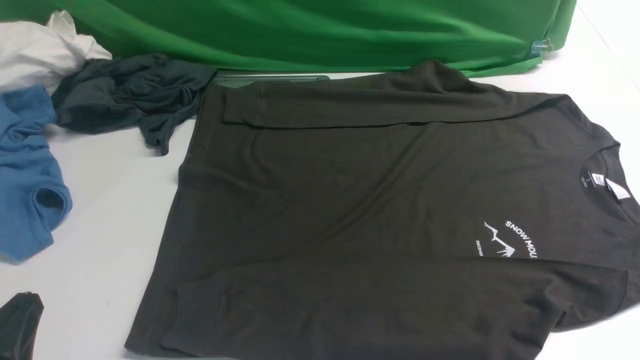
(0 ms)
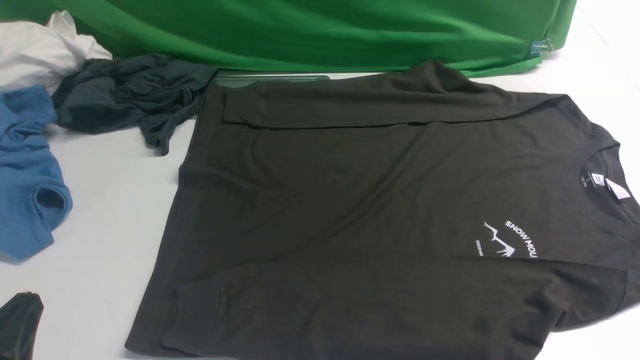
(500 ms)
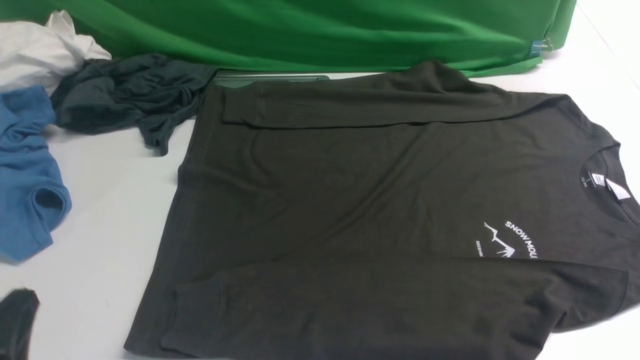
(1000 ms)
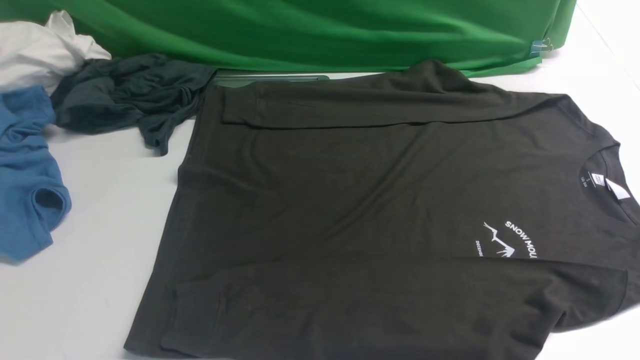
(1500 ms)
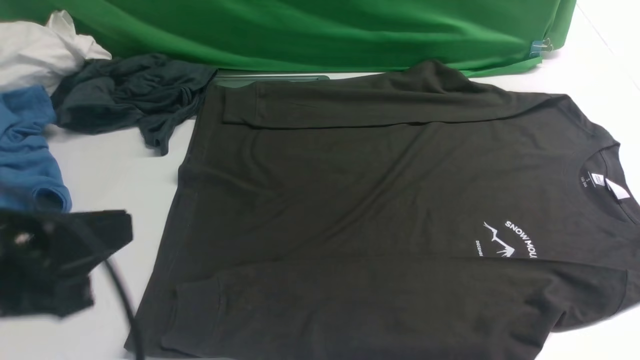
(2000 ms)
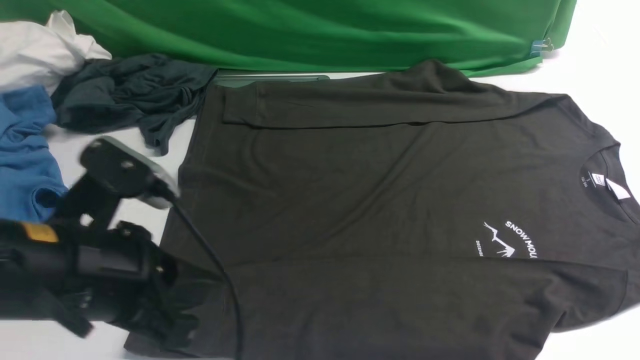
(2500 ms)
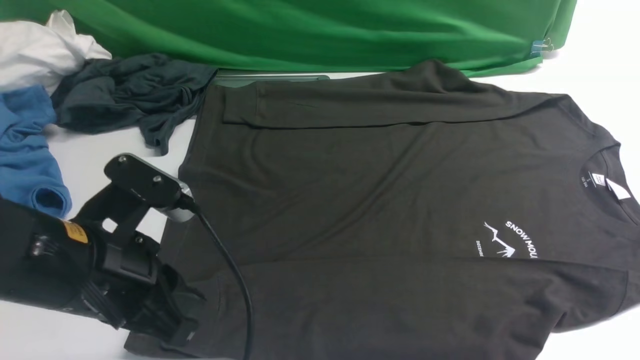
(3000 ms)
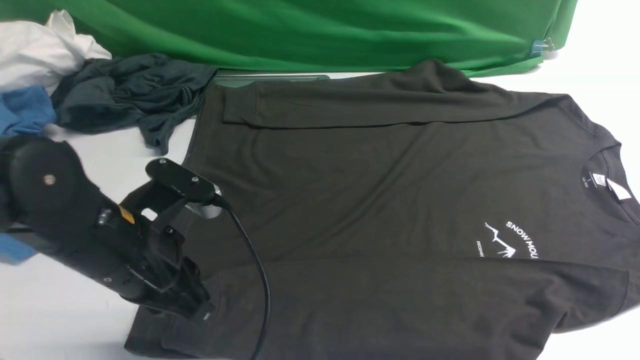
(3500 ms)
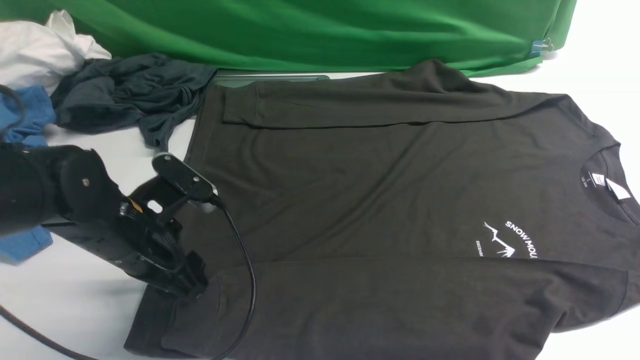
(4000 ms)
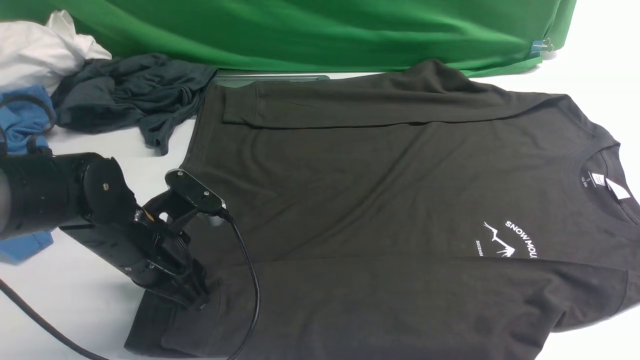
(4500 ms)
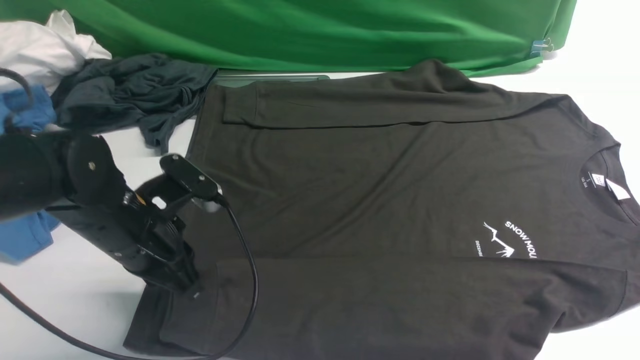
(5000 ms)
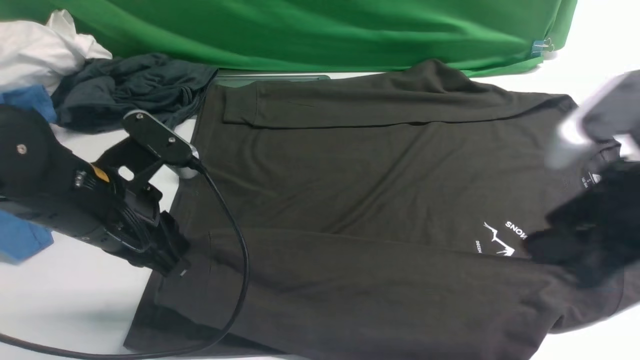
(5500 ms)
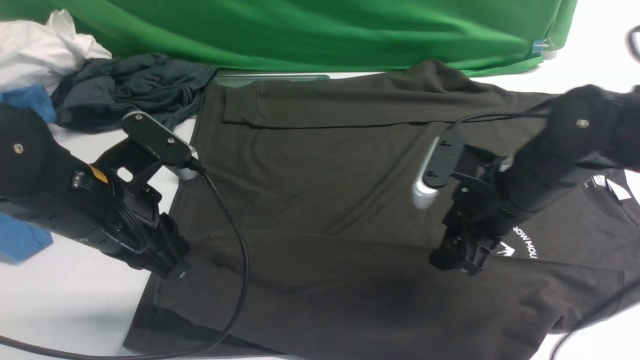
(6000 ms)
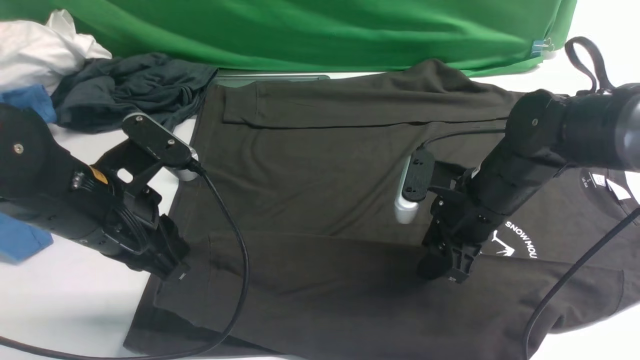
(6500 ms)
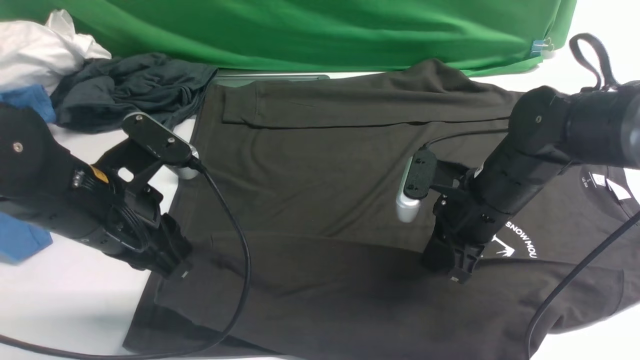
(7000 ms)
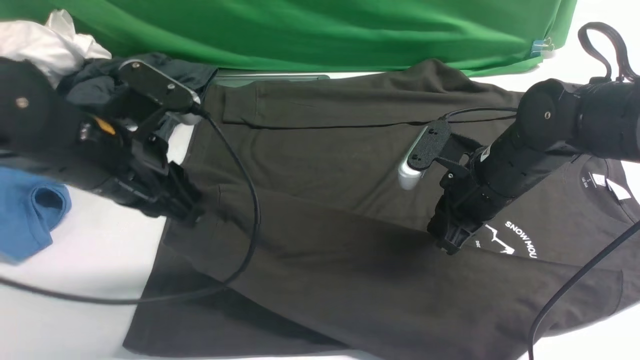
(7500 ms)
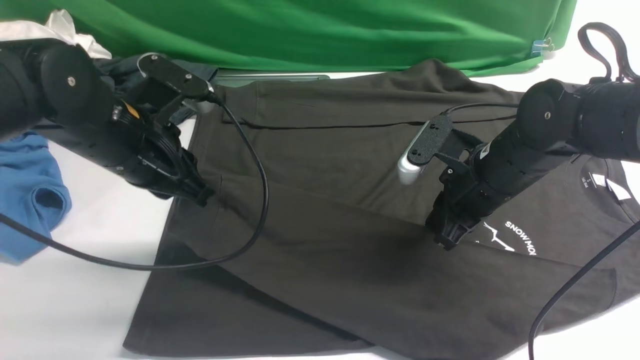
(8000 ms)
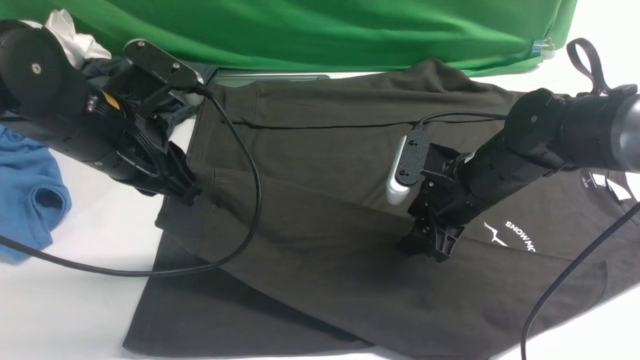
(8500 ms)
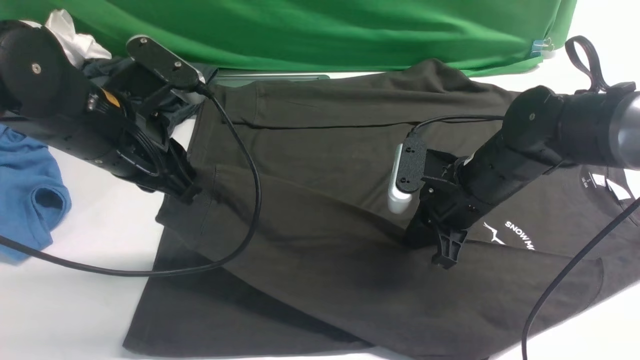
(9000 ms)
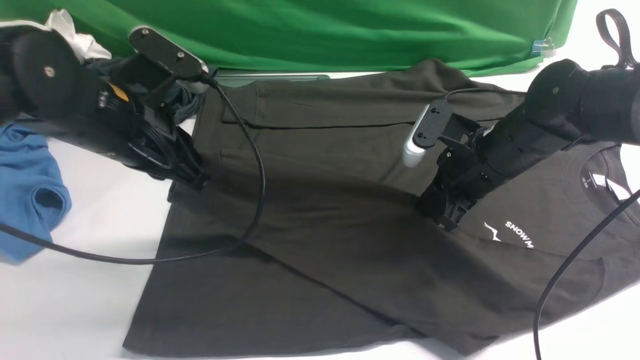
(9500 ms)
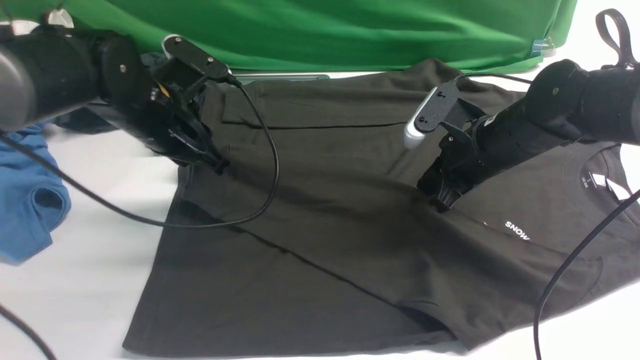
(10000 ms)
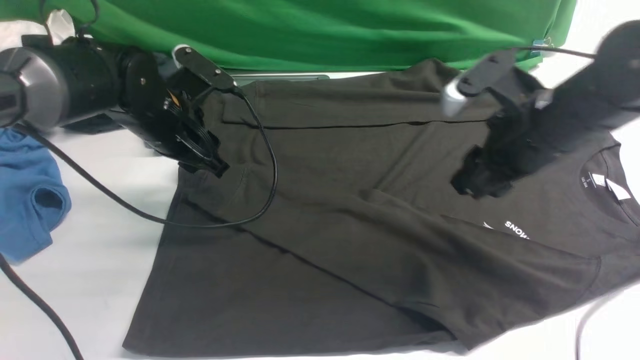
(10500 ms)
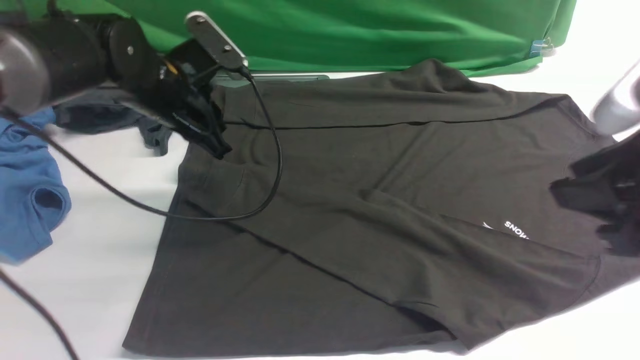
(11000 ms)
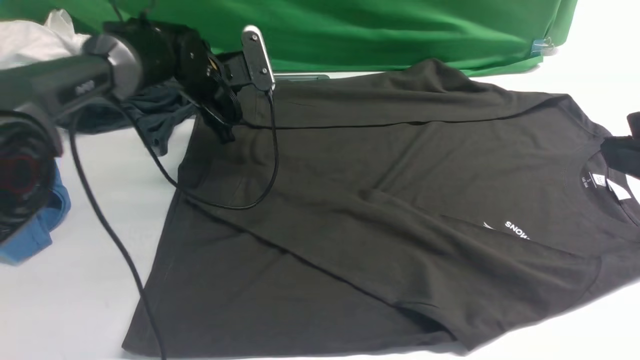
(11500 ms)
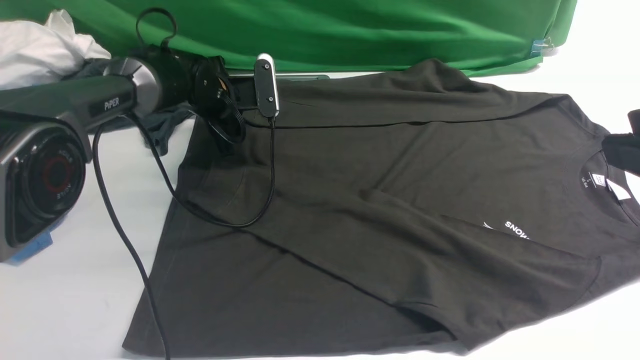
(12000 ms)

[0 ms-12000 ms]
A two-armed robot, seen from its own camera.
Step, 0 ms to 5000 ms: use the left arm to clamp the cuff closest to it.
Step, 5500 ms to 10500 ms: use the left arm to drag and place the cuff at the centered position on the left edge of the fabric.
0 ms to 2000 ms: The left gripper goes roughly 15 cm upward and forward.
2000 ms to 4000 ms: The left gripper heads forward and downward, covering about 20 cm, and opens its fingers.
4000 ms to 6000 ms: The left gripper travels upward by about 5 cm, and closes its fingers. Meanwhile the right gripper shifts about 30 cm forward, downward and to the left, and opens up.
6000 ms to 8000 ms: The right gripper closes; the left gripper heads forward, covering approximately 5 cm.
8000 ms to 10000 ms: The right gripper closes and opens again. Meanwhile the left gripper travels forward by roughly 5 cm.
10000 ms to 12000 ms: The right gripper moves backward and upward, roughly 30 cm. Meanwhile the left gripper moves forward and downward, about 15 cm, and opens up.

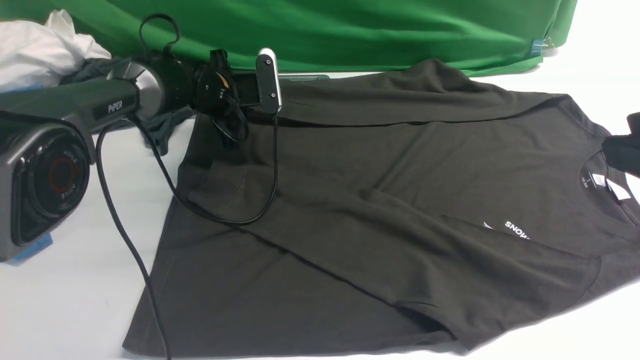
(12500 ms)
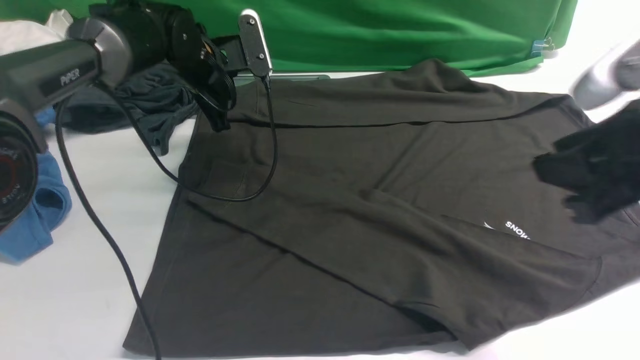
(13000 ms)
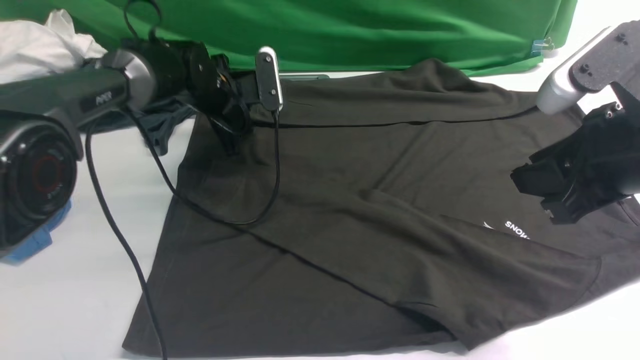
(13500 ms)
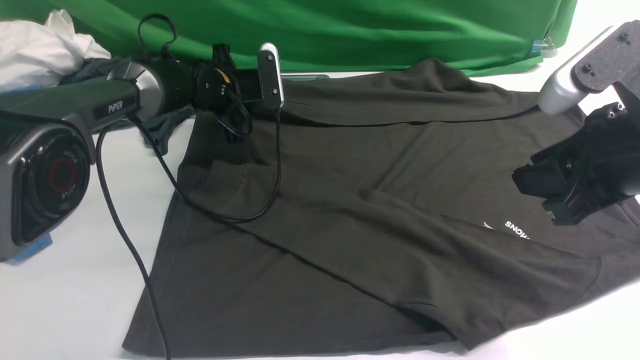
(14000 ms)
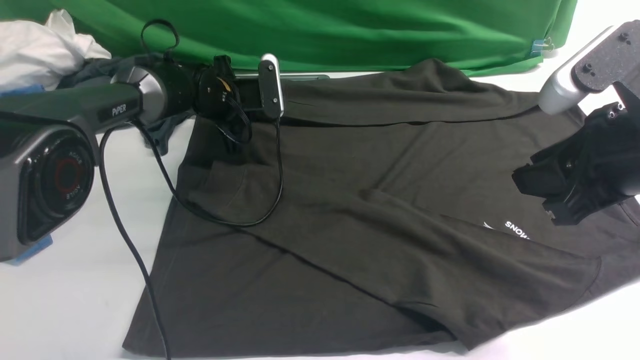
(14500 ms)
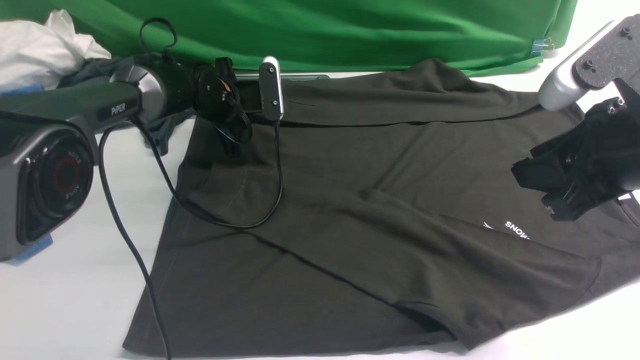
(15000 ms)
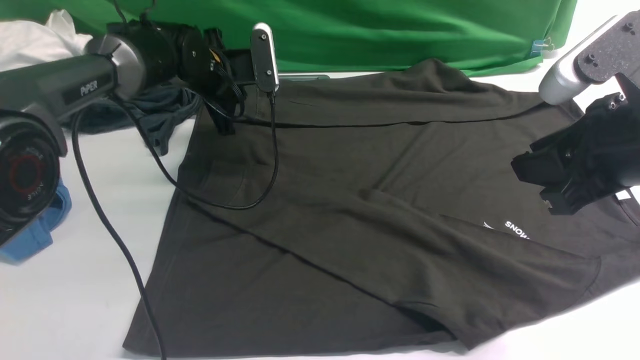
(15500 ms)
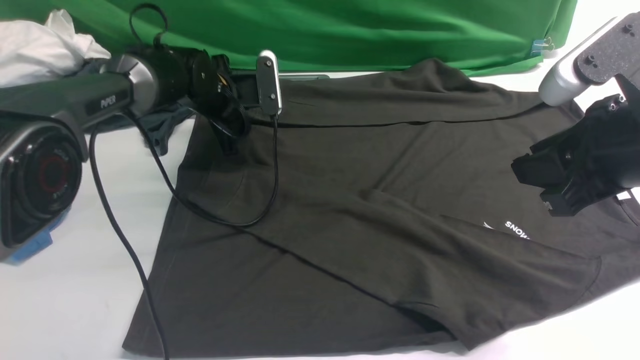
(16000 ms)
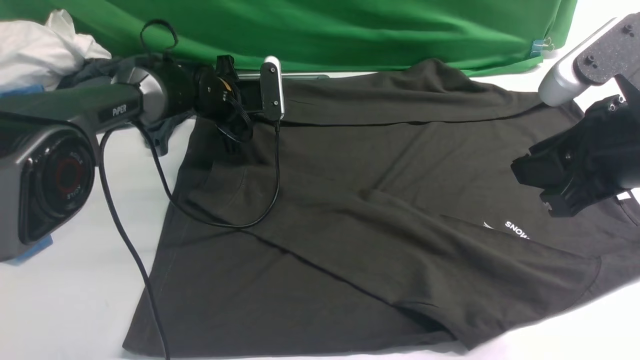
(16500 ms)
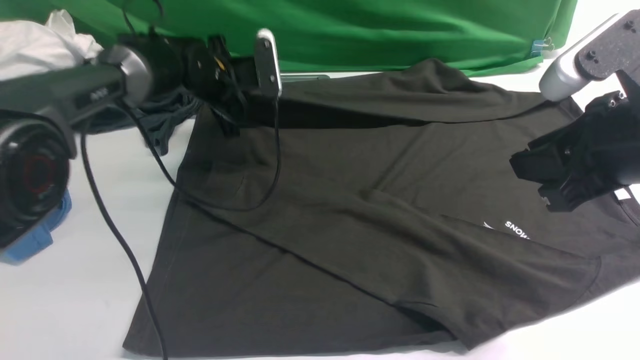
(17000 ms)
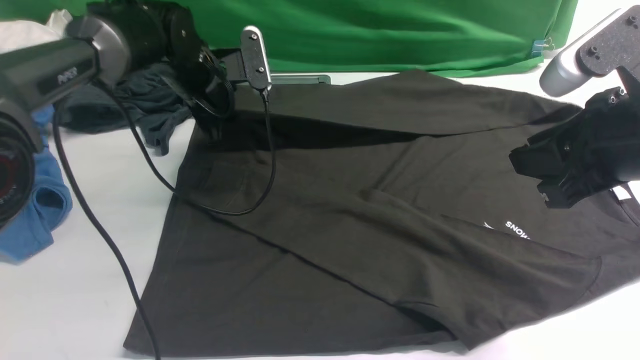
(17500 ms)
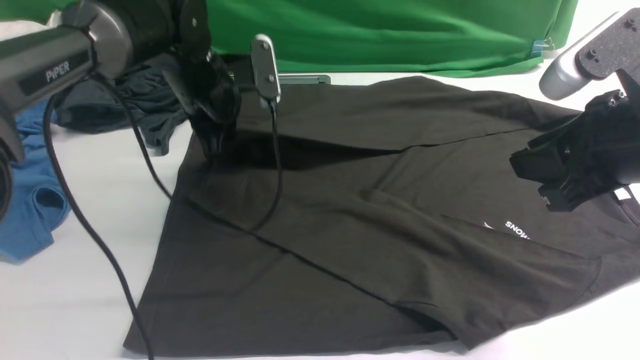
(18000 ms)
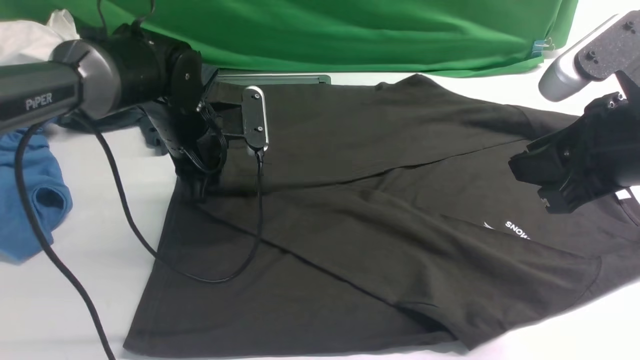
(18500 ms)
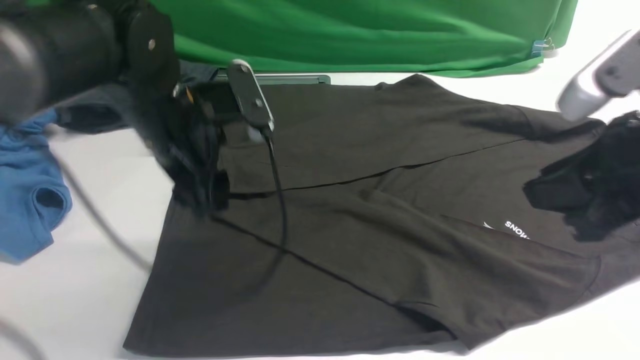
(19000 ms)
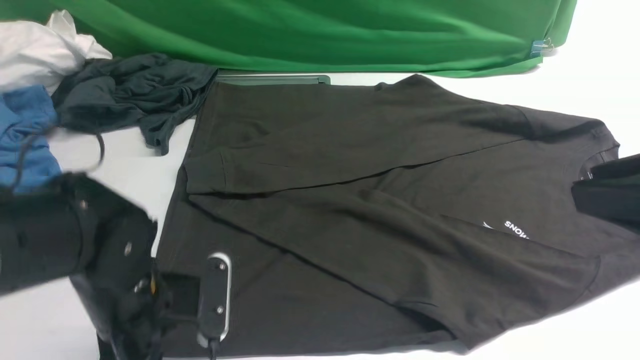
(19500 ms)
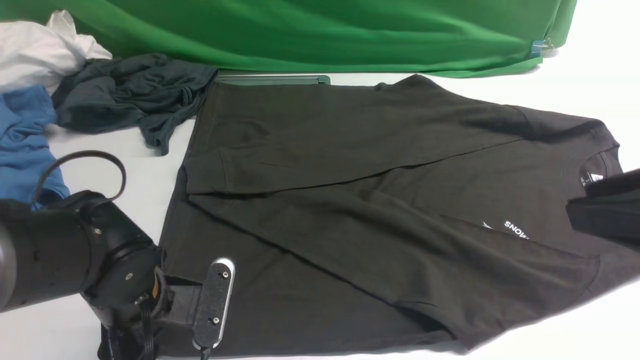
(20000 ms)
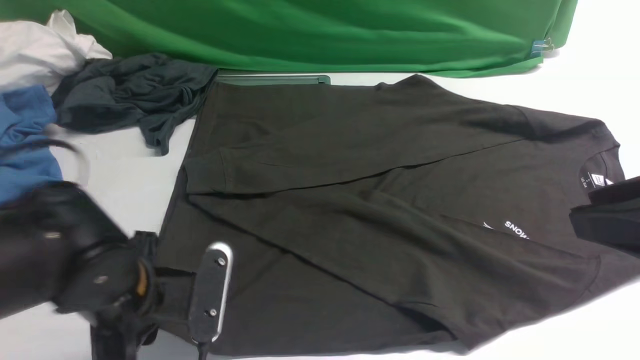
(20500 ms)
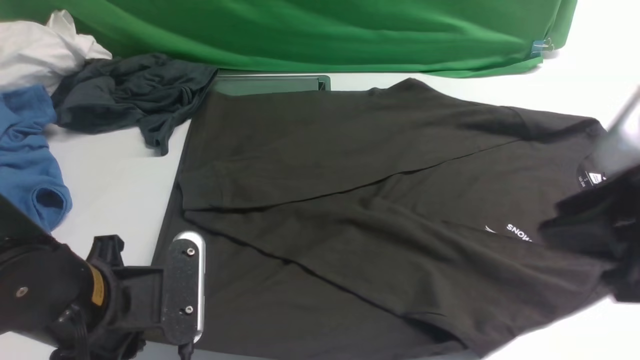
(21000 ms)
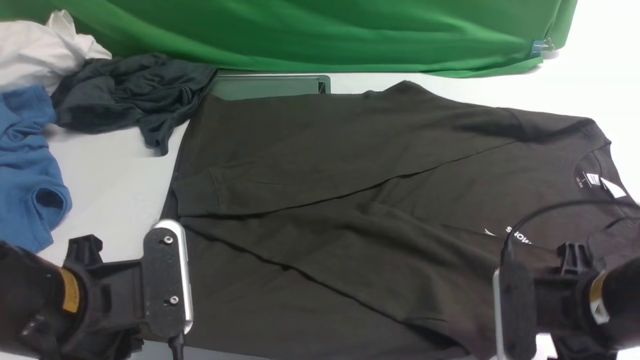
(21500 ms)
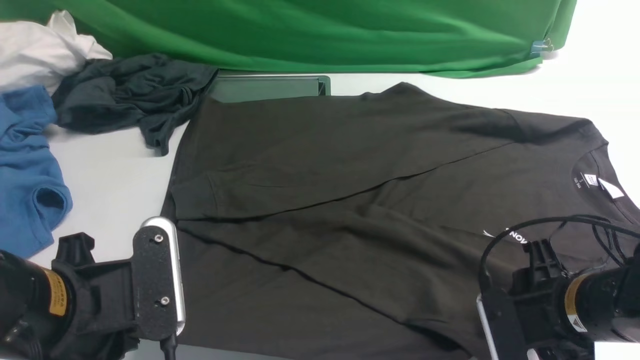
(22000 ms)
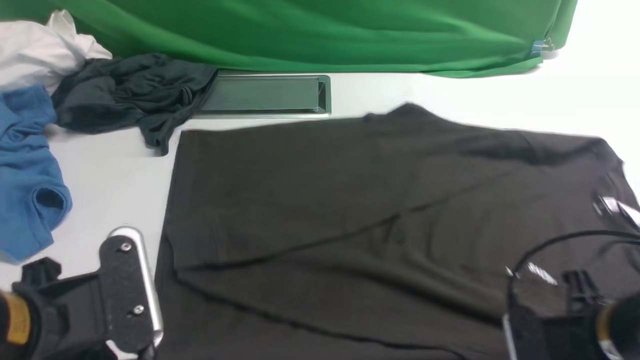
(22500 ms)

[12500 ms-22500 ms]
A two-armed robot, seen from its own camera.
Step, 12500 ms to 17000 ms: use the left arm to clamp the cuff farthest from it.
Step, 17500 ms to 18500 ms: use the left arm to drag and drop the cuff onto the cuff closest to the left arm.
Step, 19000 ms to 22000 ms: use both arms simultaneously to clamp the lower edge of the clothing fabric.
12500 ms to 14500 ms: The right gripper heads forward and downward, covering some 10 cm.
14500 ms to 16500 ms: The grippers move only a little.
16500 ms to 18500 ms: The left gripper goes approximately 15 cm backward and upward, and closes, then opens again.
18500 ms to 20500 ms: The right gripper shifts roughly 10 cm backward, while the left gripper travels backward by approximately 20 cm, and closes up.
20500 ms to 22500 ms: The left gripper shifts roughly 10 cm backward and upward. The right gripper is displaced downward by about 20 cm, and closes up.
